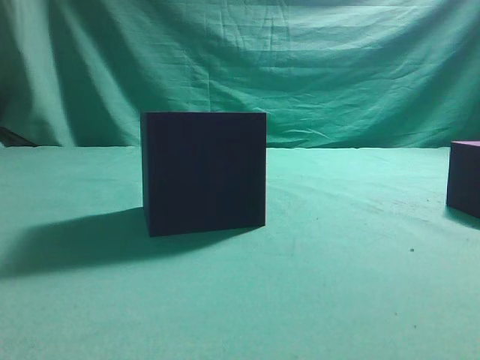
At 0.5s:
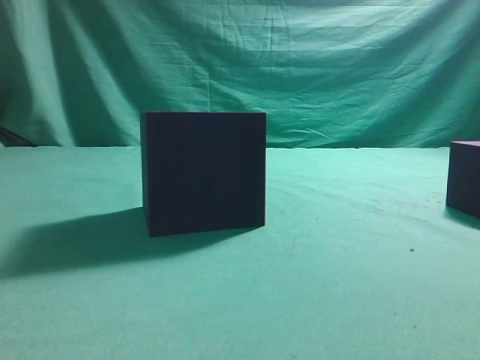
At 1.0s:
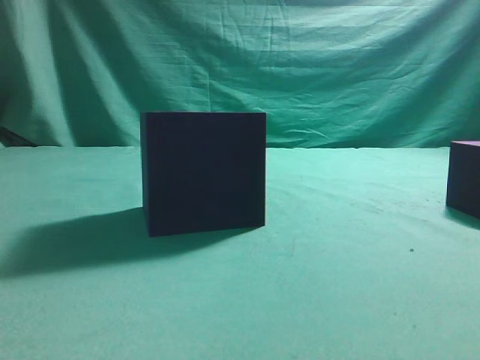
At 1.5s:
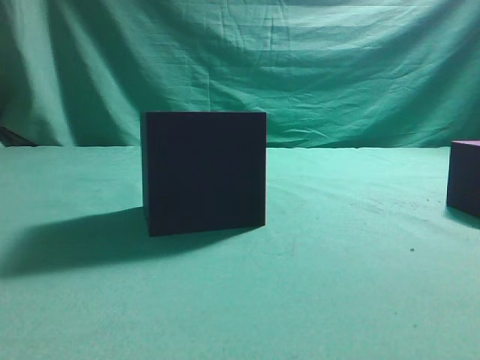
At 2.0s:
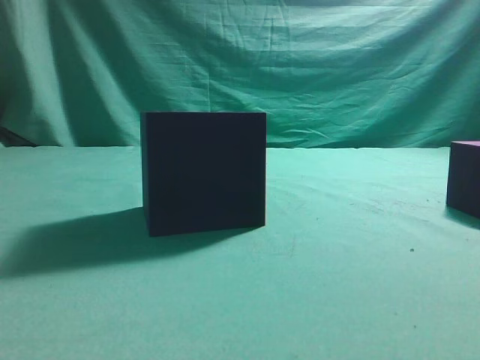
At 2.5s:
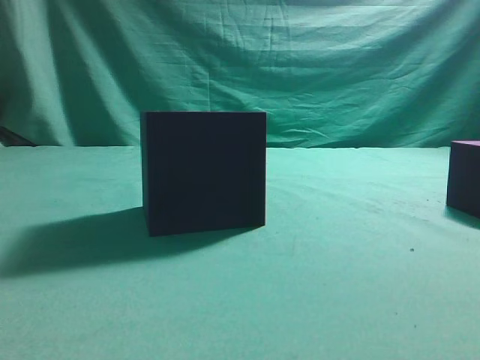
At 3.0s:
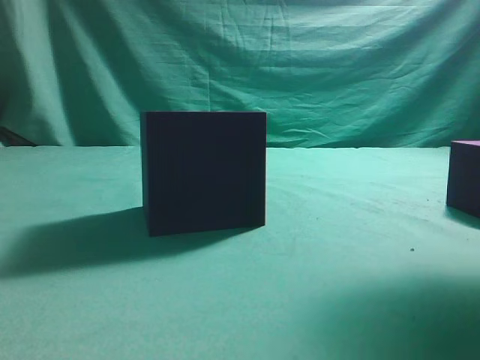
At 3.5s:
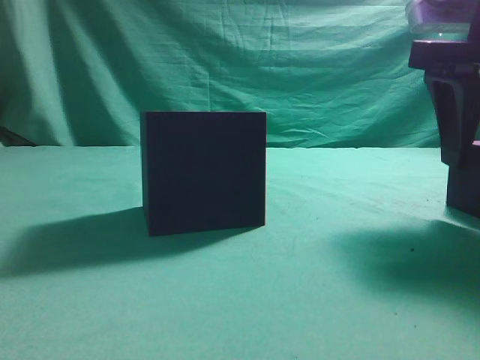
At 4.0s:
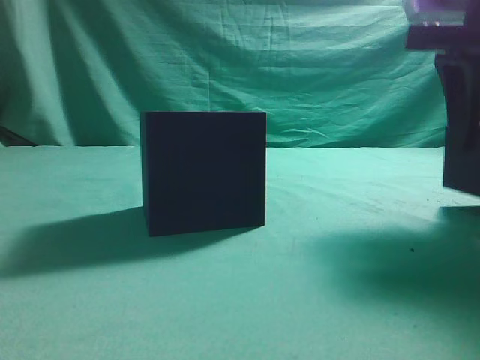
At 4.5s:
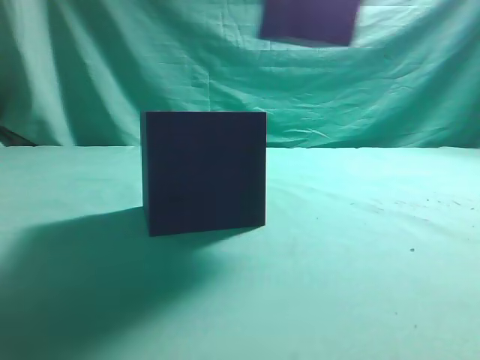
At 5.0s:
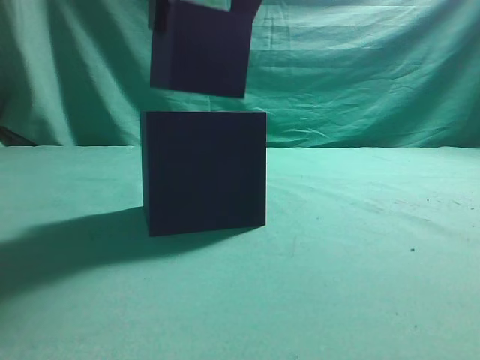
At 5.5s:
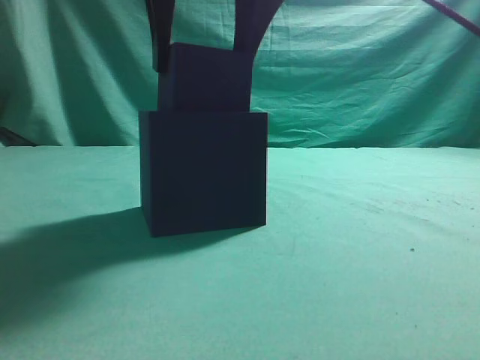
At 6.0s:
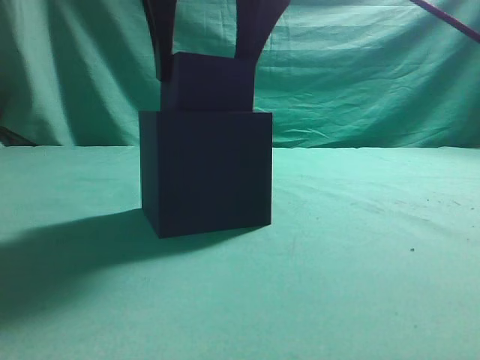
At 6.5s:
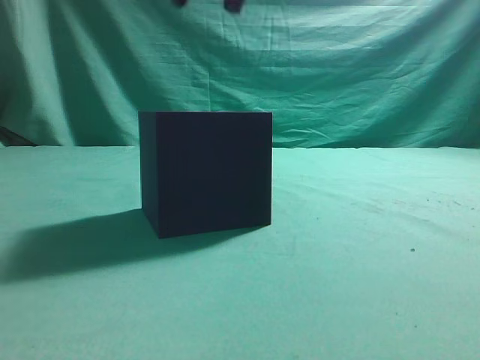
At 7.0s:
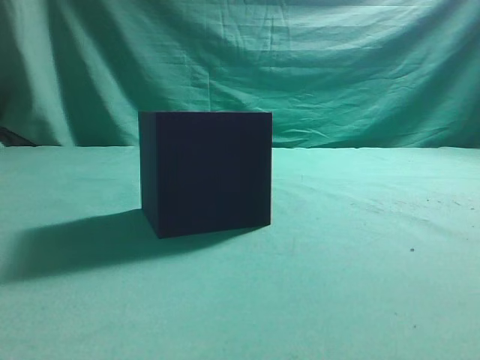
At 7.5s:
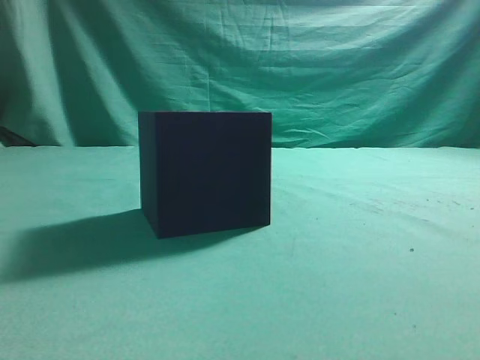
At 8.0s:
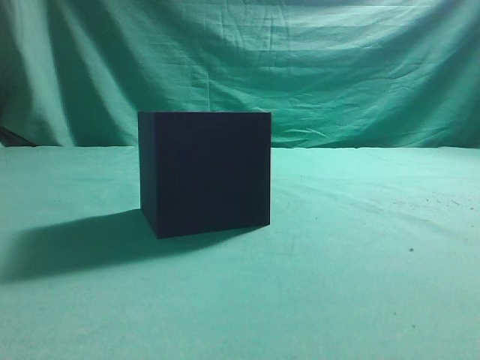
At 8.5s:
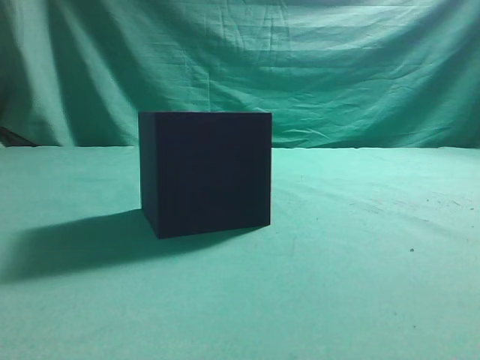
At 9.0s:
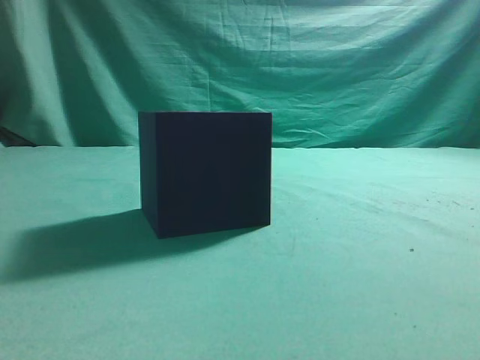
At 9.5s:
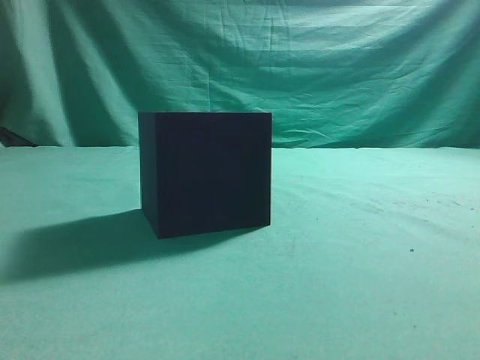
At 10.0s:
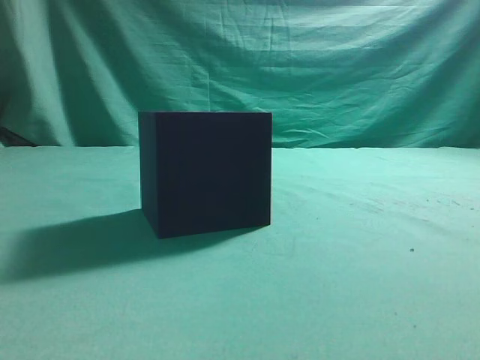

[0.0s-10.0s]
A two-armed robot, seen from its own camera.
Task of the whole recording: pick up the cube block and place it into the cube groove.
Step, 0.0s to 4.0s: Grasp the cube.
Step, 4.5s to 6.0s: Place cube into the cube-shaped recess.
2.0s to 4.0s: The right gripper travels forward and to the left by roughly 20 cm, and opens its fingers.
4.0s to 6.0s: The right gripper is displaced to the left by about 20 cm.
6.0s to 8.0s: The right gripper travels to the right, backward and upward by roughly 35 cm, and closes.
